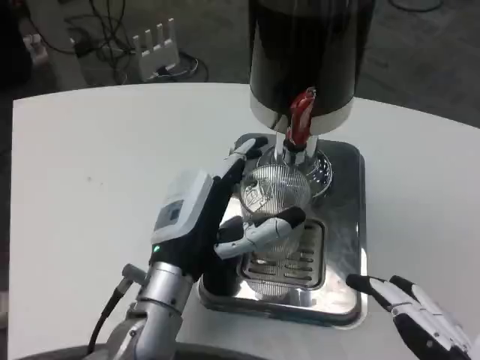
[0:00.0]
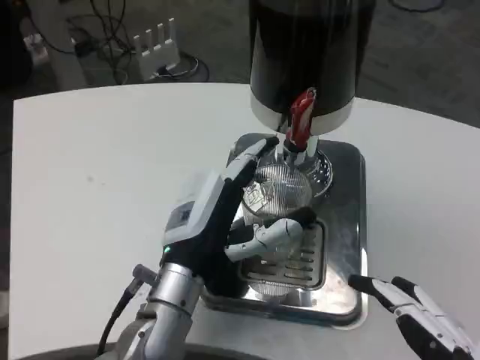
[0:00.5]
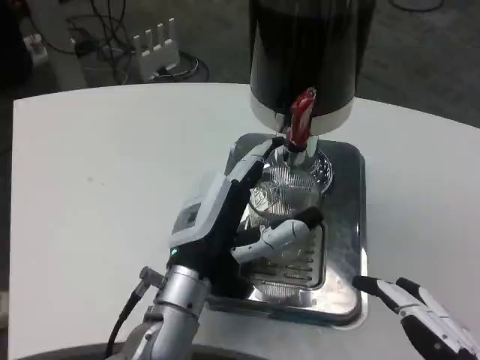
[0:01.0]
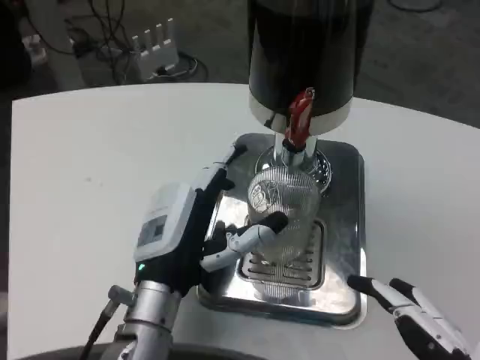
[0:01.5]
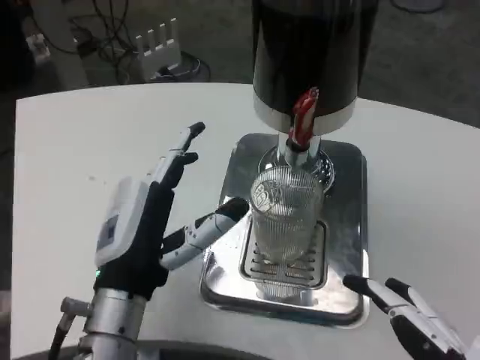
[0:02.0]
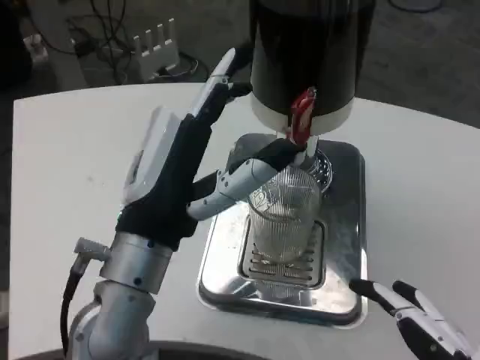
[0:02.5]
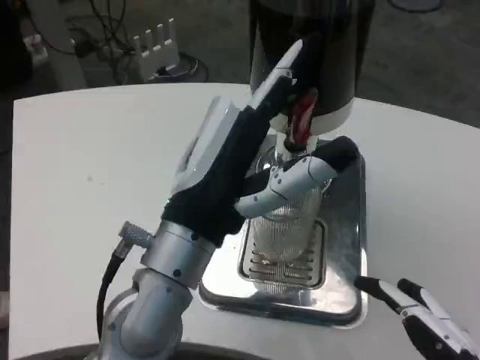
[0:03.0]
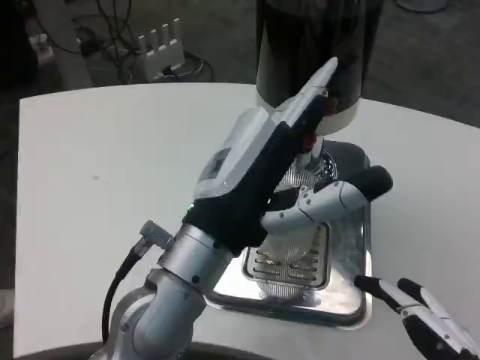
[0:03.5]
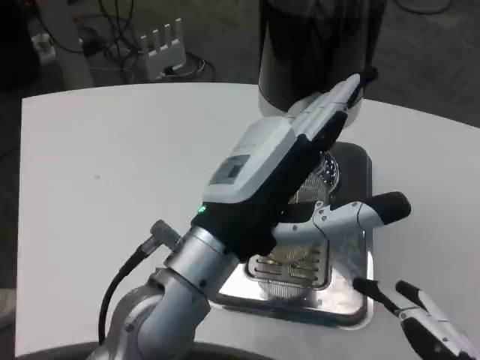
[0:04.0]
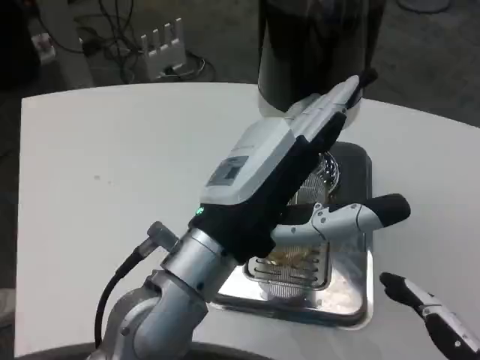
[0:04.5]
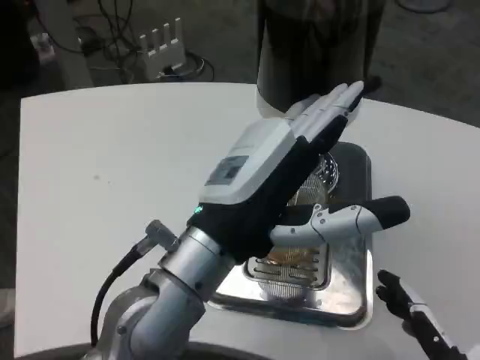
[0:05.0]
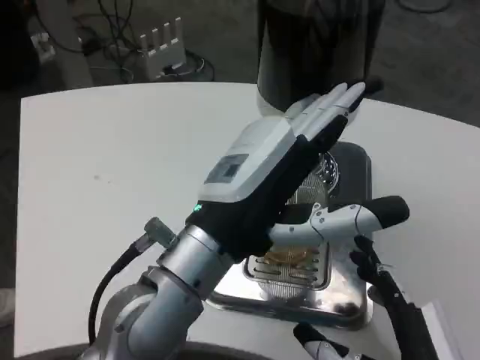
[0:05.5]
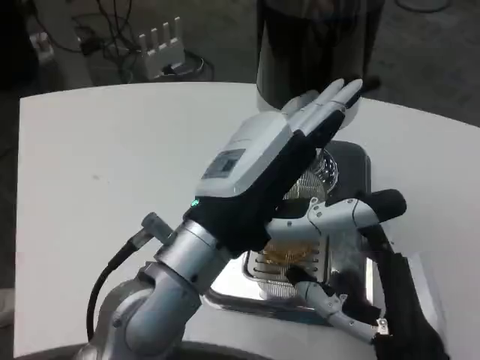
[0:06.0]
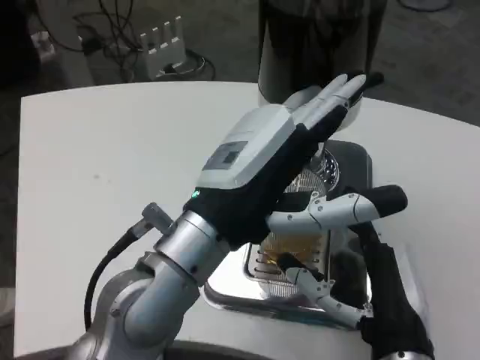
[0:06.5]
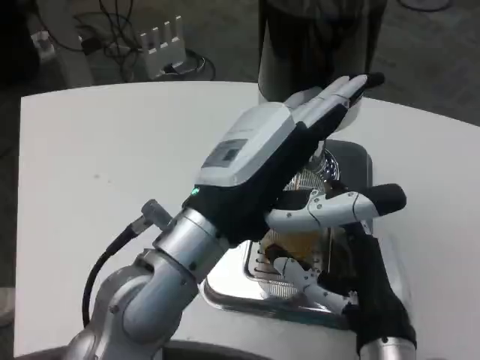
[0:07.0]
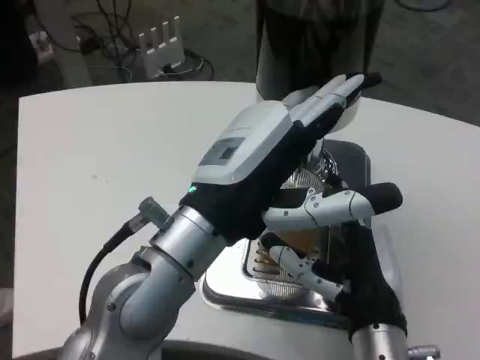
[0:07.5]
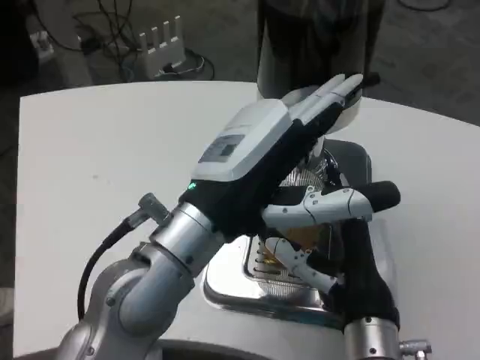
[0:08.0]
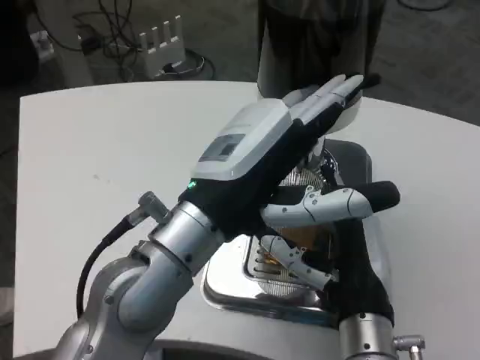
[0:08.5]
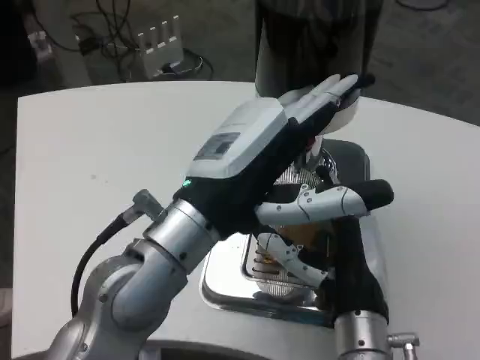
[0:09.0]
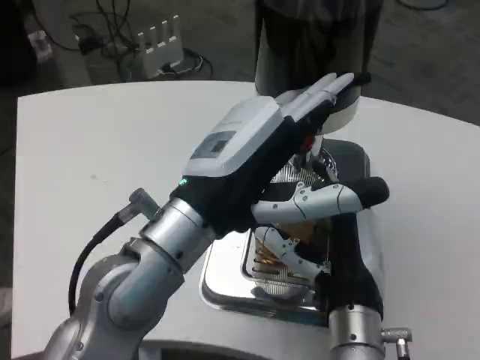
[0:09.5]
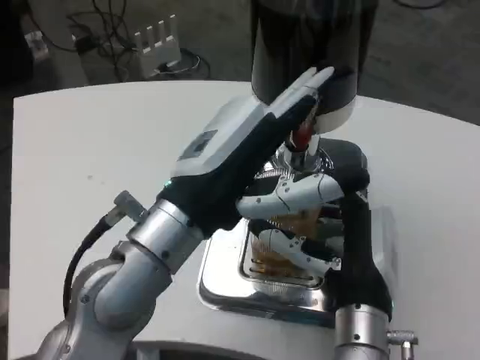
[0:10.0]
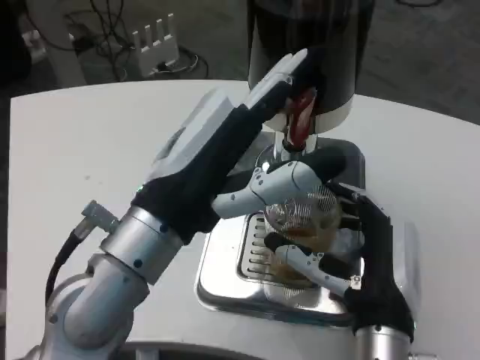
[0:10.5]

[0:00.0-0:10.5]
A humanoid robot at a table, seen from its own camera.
Task of the whole recording: Grasp the cup under the faucet to collect the drink, then remove the cup.
0:00.0 to 0:02.0: The left hand moves approximately 5 cm.
0:02.0 to 0:04.0: The left hand heads upward and to the right, covering about 10 cm.
0:04.0 to 0:06.5: The right hand is displaced forward and to the left by some 20 cm.

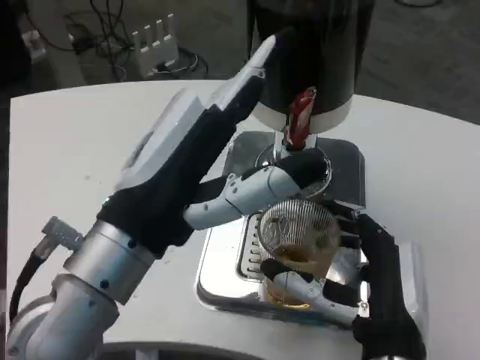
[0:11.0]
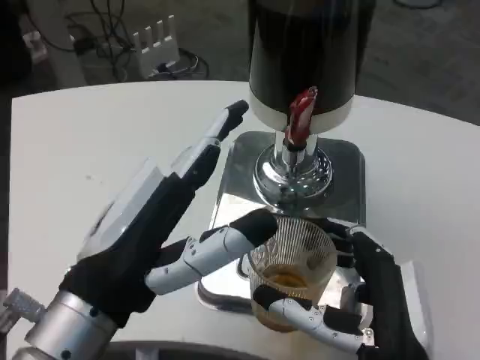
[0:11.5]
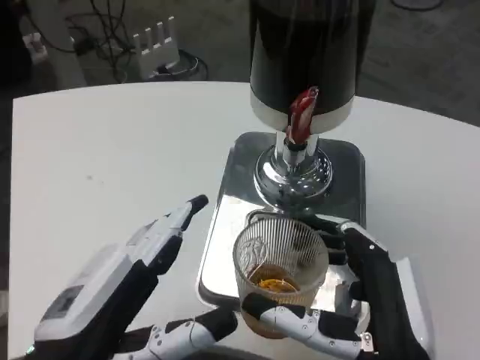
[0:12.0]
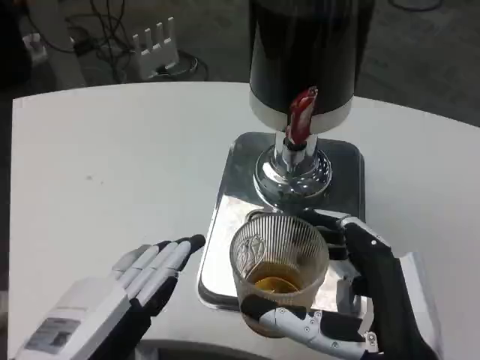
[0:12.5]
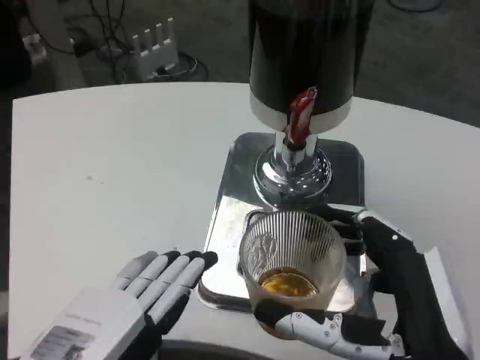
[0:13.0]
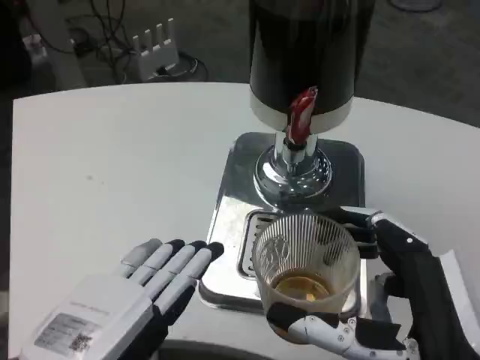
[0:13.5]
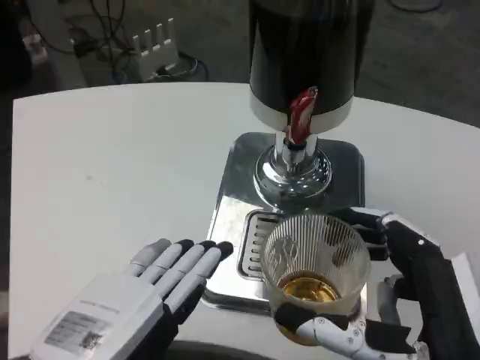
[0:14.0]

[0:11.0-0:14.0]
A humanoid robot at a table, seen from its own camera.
Task of the whole recording: Grasp the cup under the faucet to collect the drink, then remove the cup.
0:11.0 to 0:12.5: The left hand shifts about 15 cm downward, to the left and backward; the right hand moves backward, roughly 5 cm.

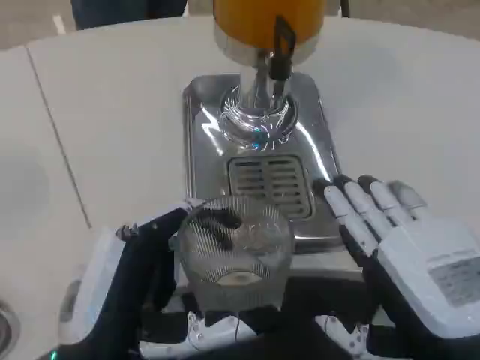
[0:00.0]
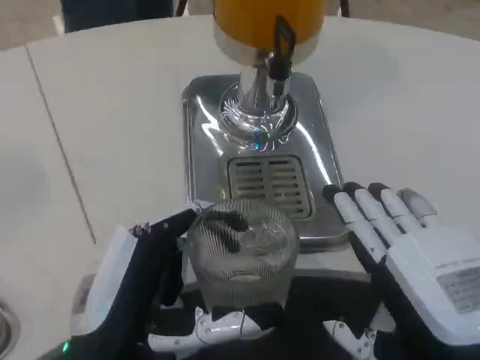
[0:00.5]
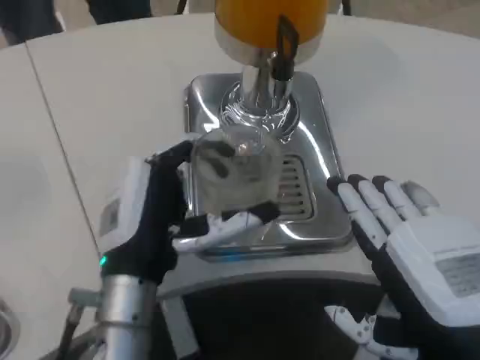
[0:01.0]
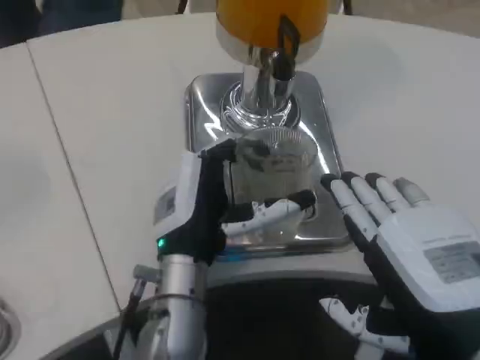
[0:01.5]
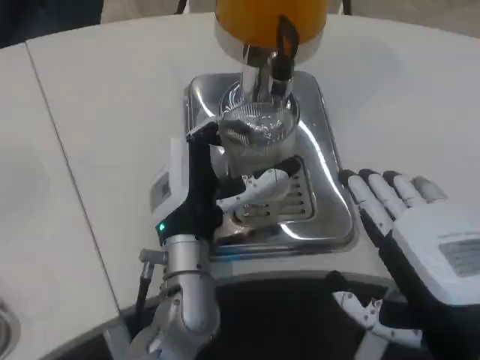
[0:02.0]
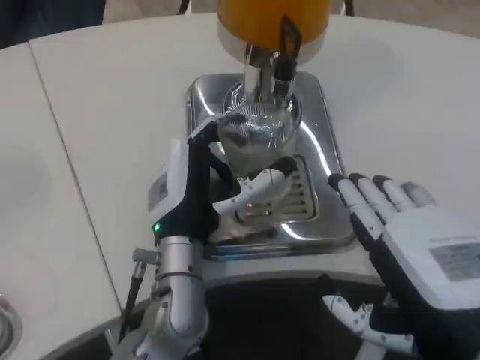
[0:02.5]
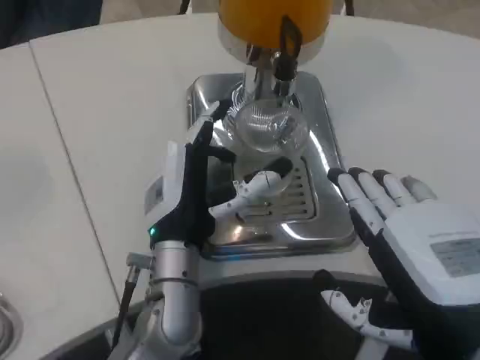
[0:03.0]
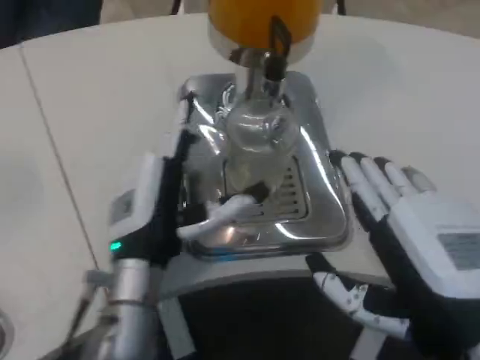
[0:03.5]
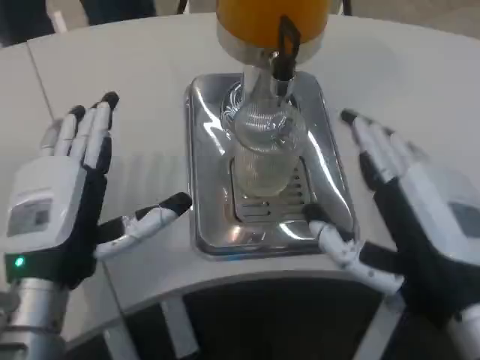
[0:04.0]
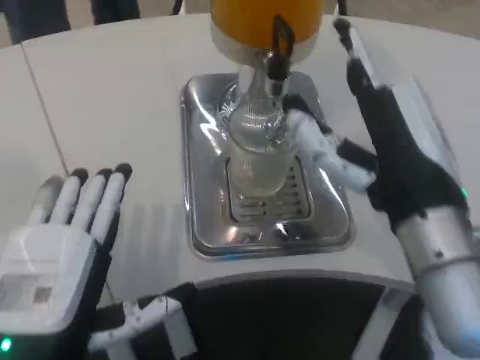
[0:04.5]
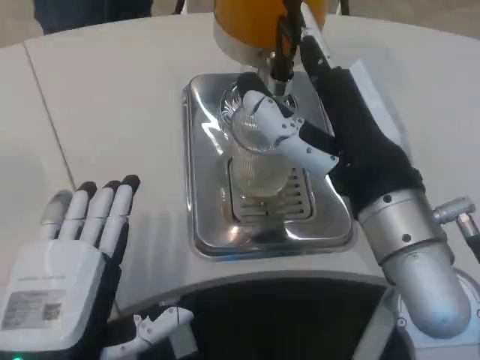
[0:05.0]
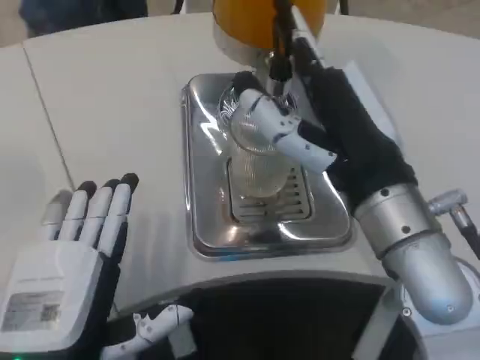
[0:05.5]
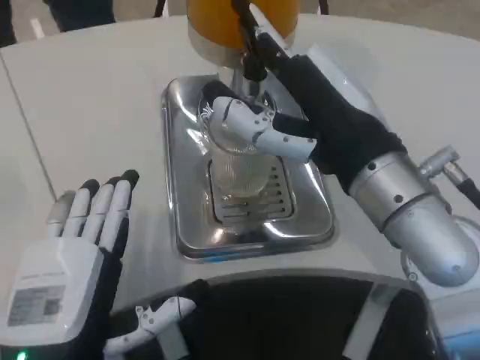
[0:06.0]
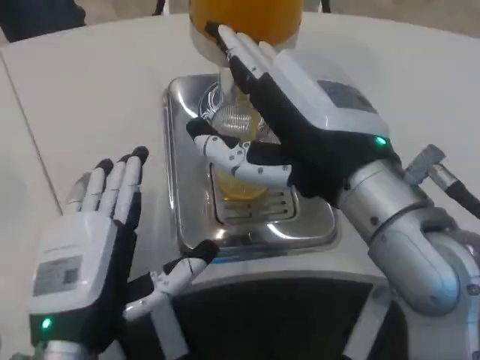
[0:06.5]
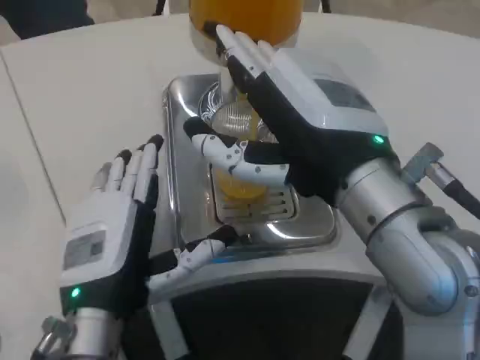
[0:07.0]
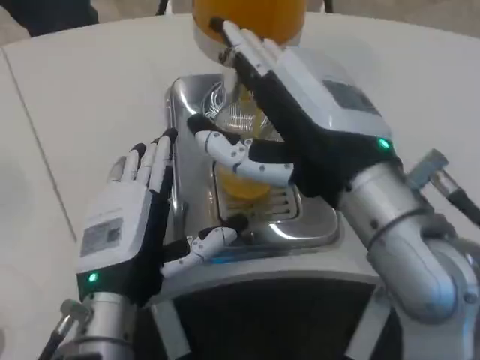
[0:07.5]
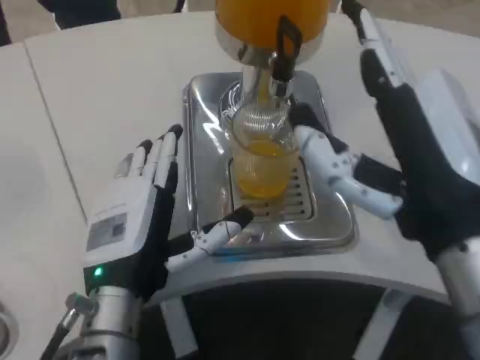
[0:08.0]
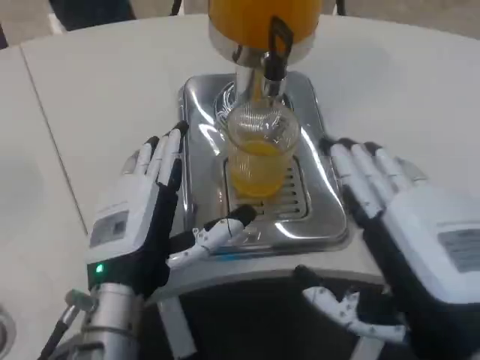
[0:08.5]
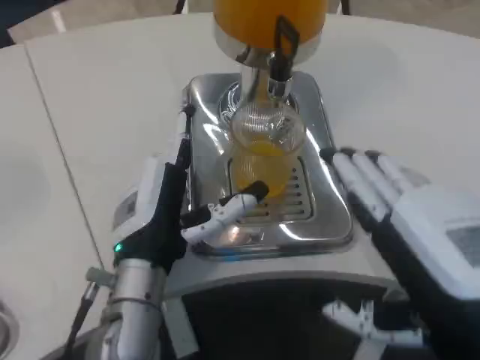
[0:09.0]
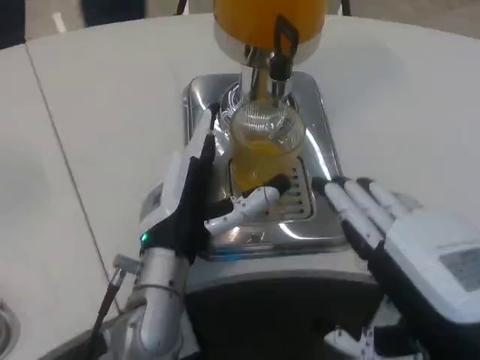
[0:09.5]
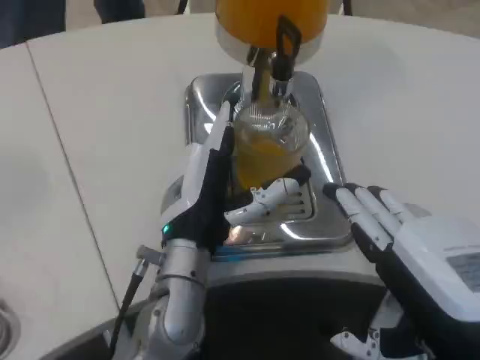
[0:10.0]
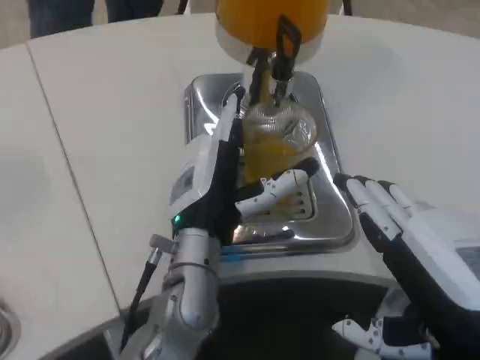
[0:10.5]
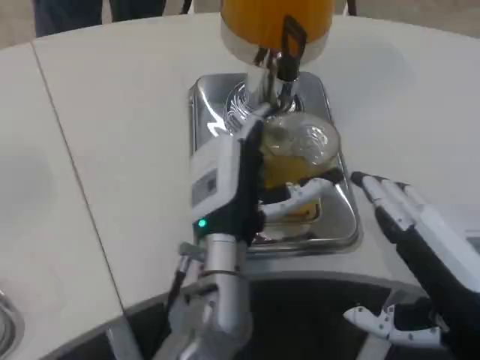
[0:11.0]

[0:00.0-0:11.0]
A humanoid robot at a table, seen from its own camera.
Task of the whole recording: Grasp the cup under the faucet to collect the drink, then remove the cup.
0:00.0 to 0:02.0: The left hand moves forward and to the right, roughly 20 cm.
0:02.0 to 0:03.5: The left hand shifts approximately 5 cm to the left.
0:03.5 to 0:05.5: The left hand goes some 15 cm backward. The right hand moves forward, some 10 cm.
0:05.5 to 0:07.5: The left hand shifts some 10 cm forward.
0:07.5 to 0:09.0: The right hand moves backward, to the right and downward, roughly 10 cm.
0:09.0 to 0:11.0: The left hand heads to the right, covering about 10 cm.

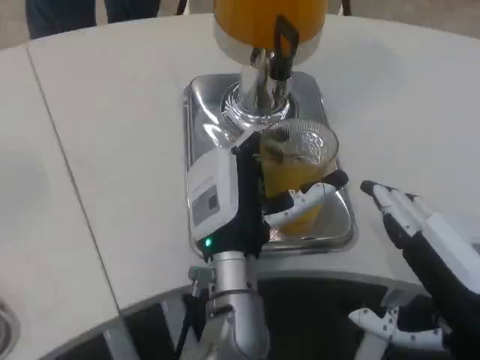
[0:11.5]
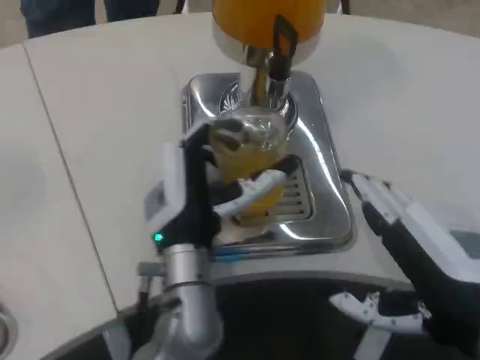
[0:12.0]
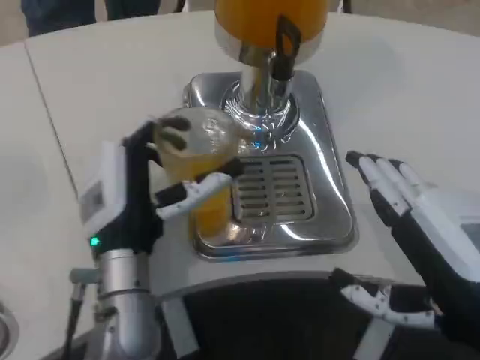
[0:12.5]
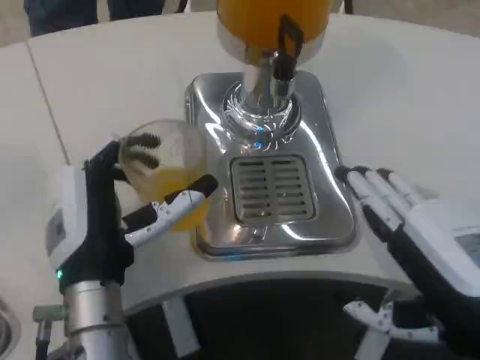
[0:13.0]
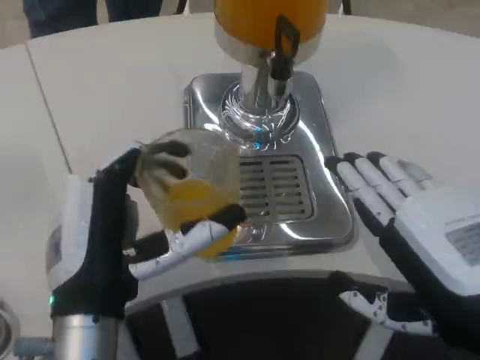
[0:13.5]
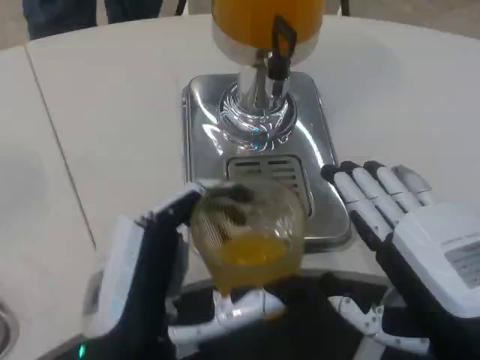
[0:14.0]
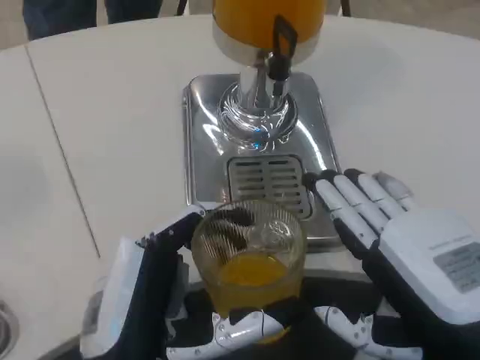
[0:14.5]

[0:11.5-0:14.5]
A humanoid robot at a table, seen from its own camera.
Task of the whole recording: Grasp the cup under the faucet to collect the drink, then remove the cup.
0:11.5 to 0:13.0: The left hand travels to the left and backward by about 15 cm.
0:13.0 to 0:14.5: The left hand travels backward by roughly 10 cm.
